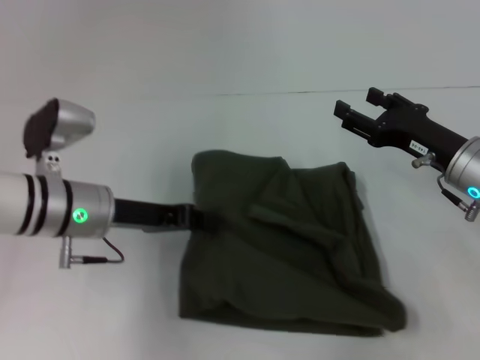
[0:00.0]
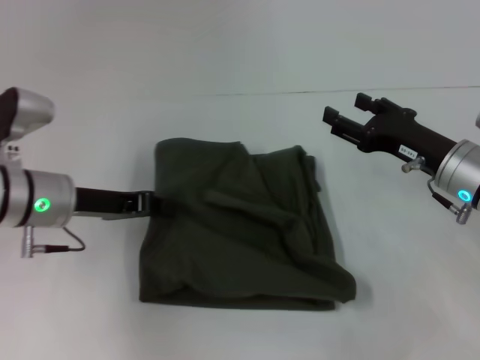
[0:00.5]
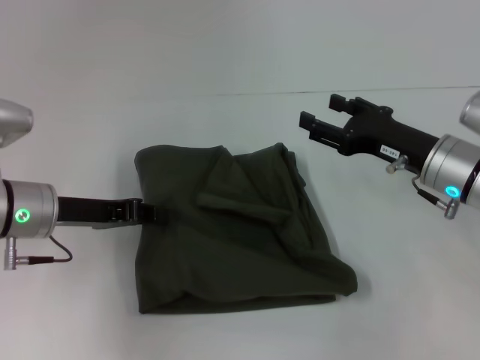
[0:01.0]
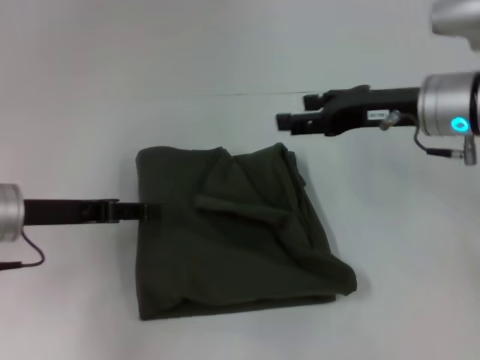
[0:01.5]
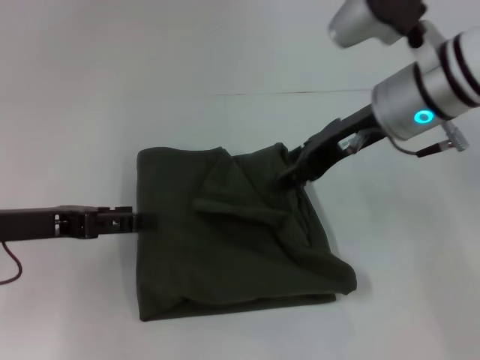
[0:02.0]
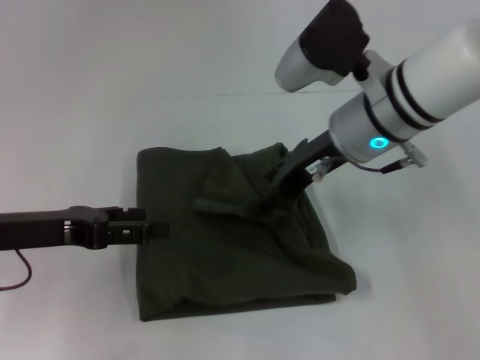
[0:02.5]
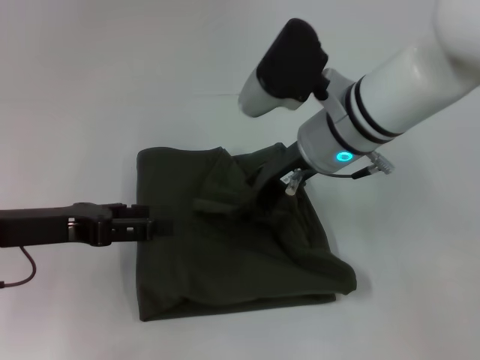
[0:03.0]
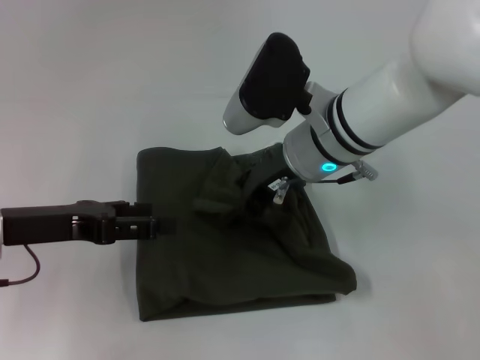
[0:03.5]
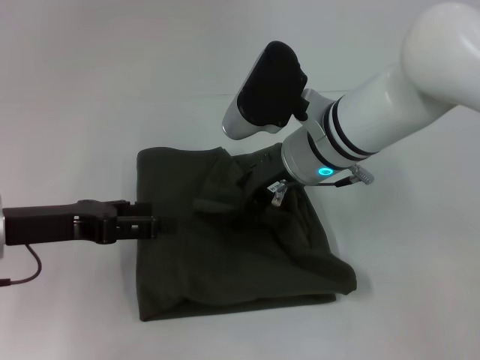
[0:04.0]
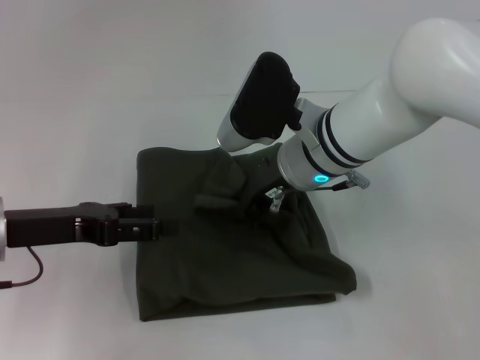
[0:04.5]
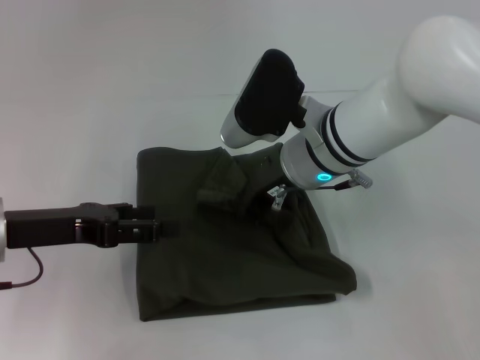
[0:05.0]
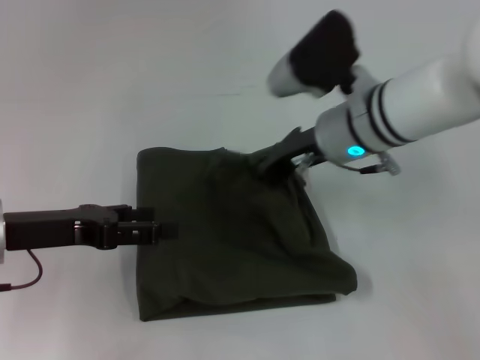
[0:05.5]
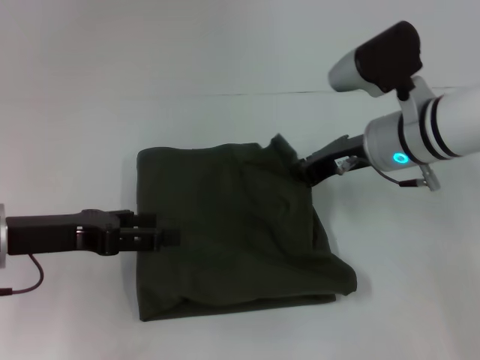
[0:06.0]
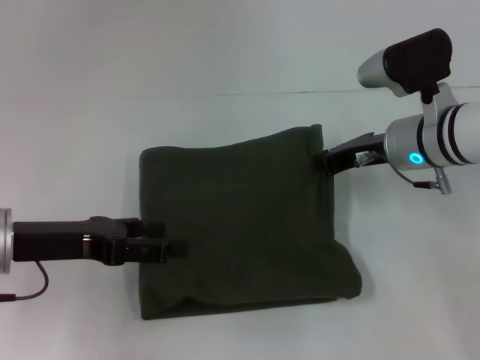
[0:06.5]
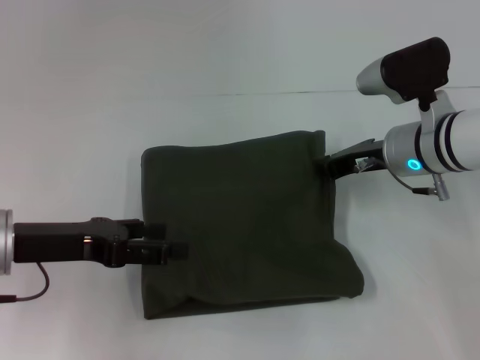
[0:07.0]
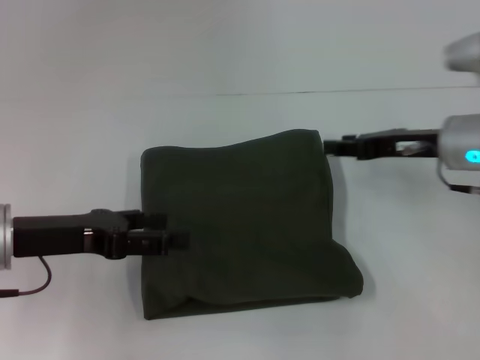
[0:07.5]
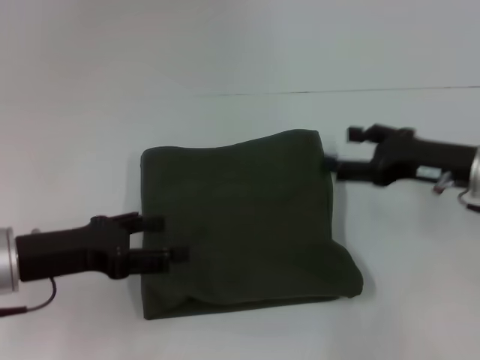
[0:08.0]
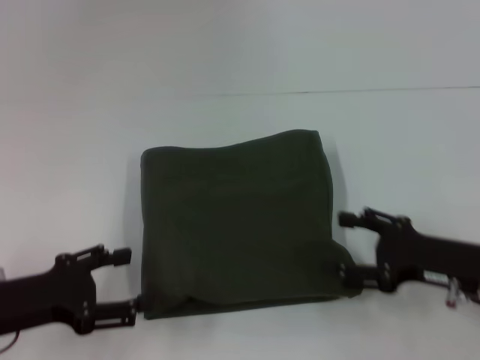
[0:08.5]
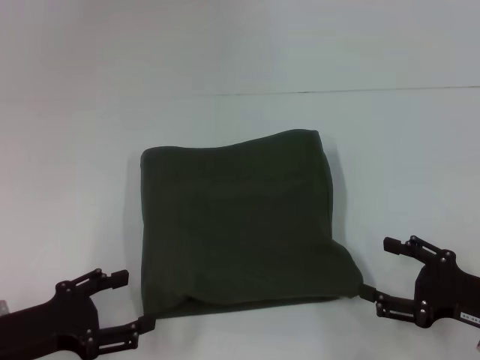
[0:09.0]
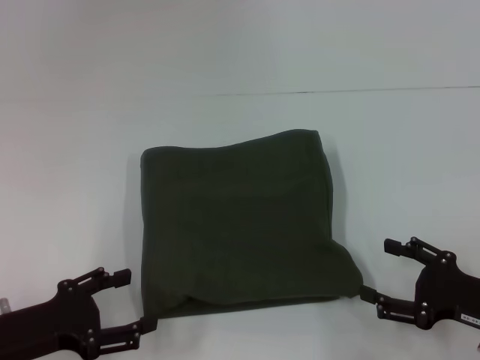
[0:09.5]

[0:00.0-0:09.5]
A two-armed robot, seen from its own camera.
0:00.0 to 0:02.0: The left gripper travels to the left and backward by roughly 10 cm, and opens its fingers; the right gripper shifts about 15 cm upward and to the left.
0:02.0 to 0:04.0: The right gripper shifts about 10 cm to the left and downward.
0:04.0 to 0:05.5: The right gripper closes its fingers.
0:05.5 to 0:07.5: The right gripper goes roughly 15 cm to the right.
0:07.5 to 0:09.5: The right gripper travels backward and downward by approximately 20 cm, and opens up, while the left gripper is displaced backward and downward by approximately 10 cm.

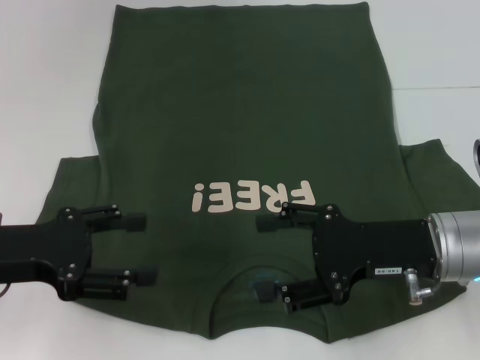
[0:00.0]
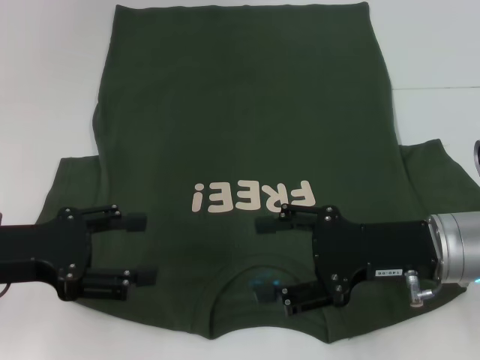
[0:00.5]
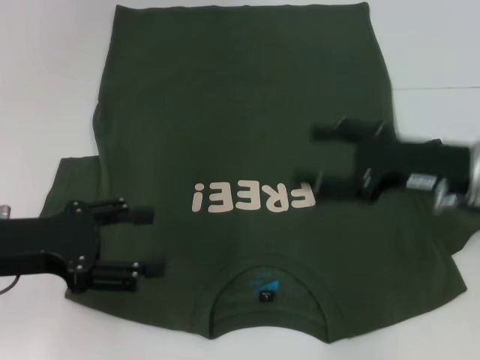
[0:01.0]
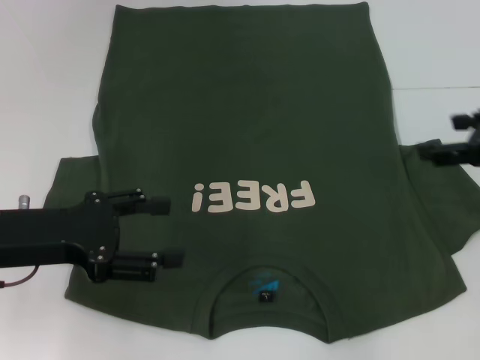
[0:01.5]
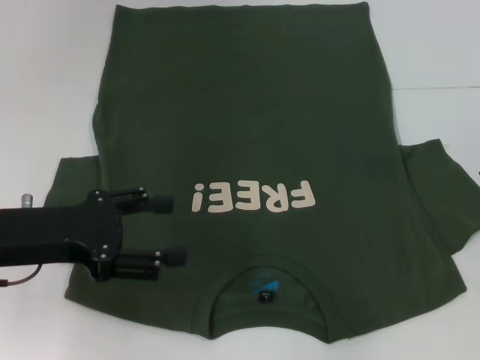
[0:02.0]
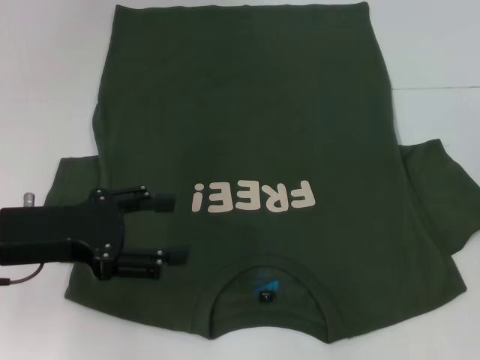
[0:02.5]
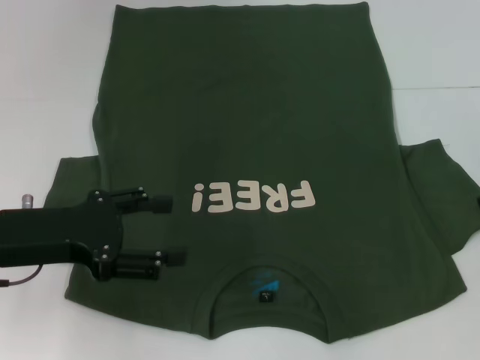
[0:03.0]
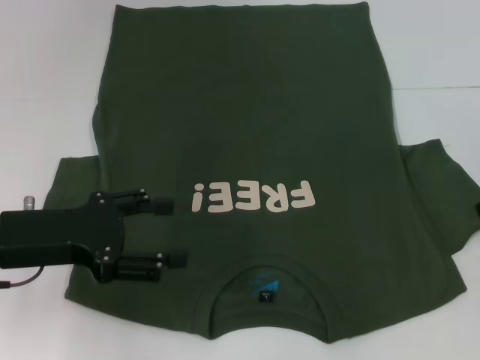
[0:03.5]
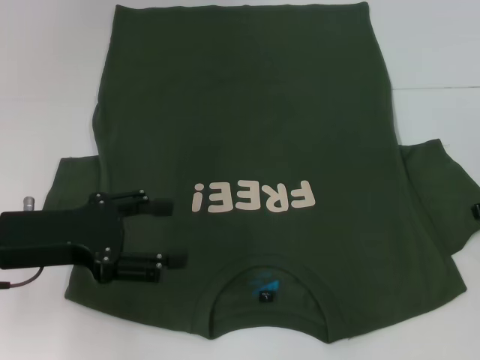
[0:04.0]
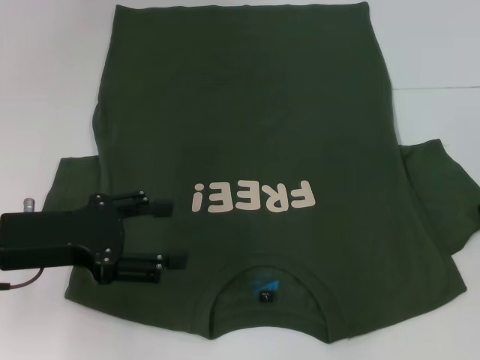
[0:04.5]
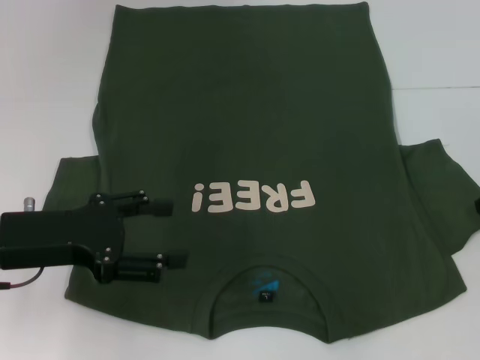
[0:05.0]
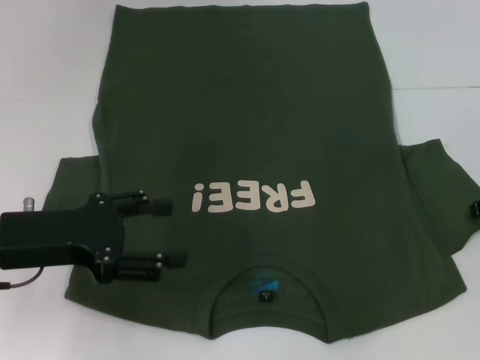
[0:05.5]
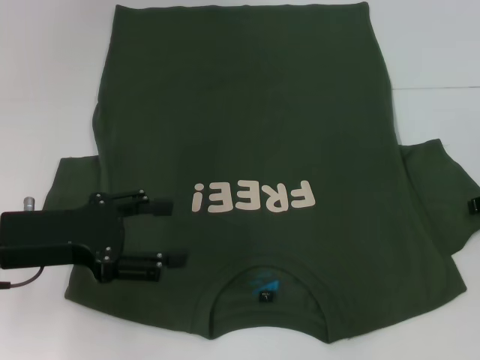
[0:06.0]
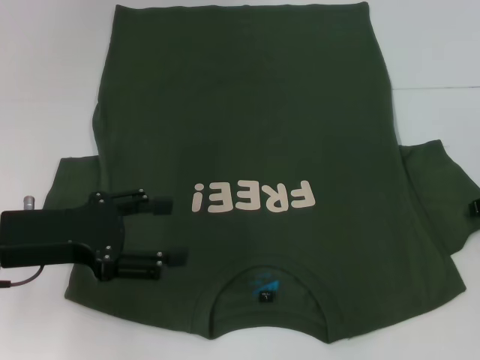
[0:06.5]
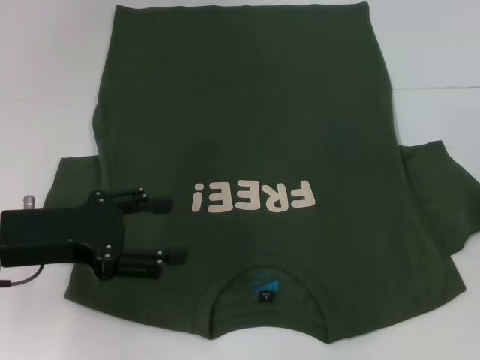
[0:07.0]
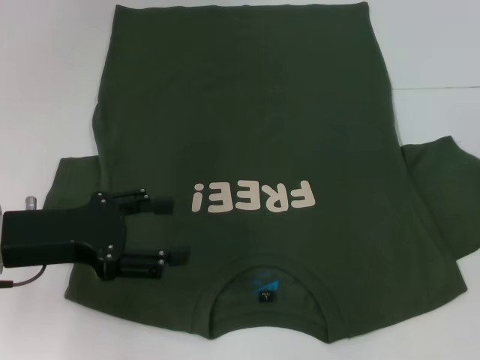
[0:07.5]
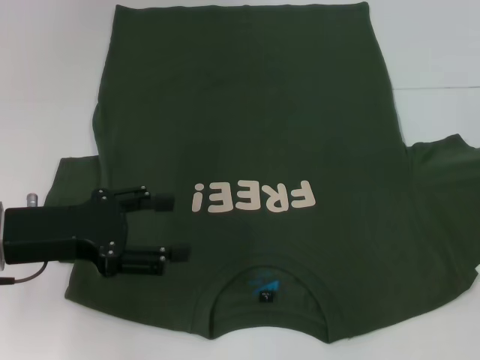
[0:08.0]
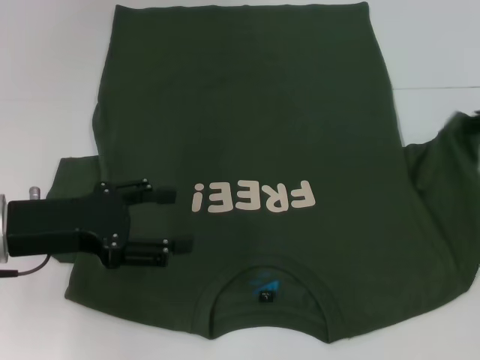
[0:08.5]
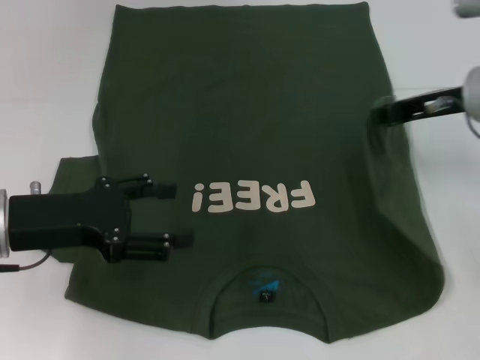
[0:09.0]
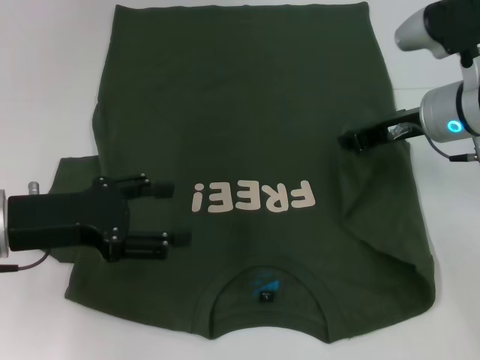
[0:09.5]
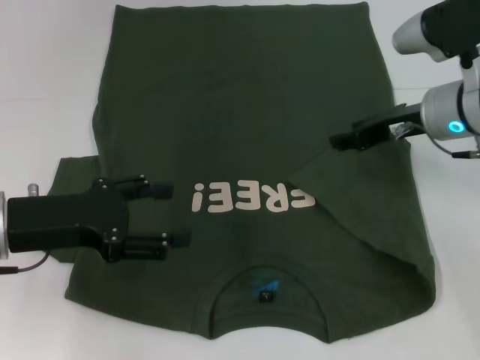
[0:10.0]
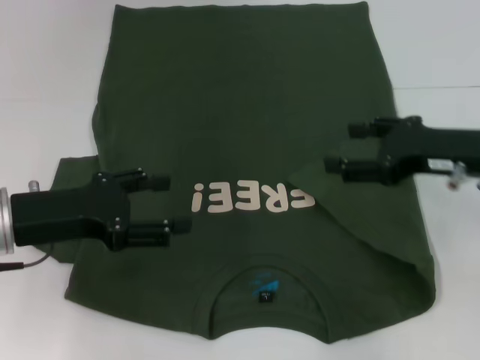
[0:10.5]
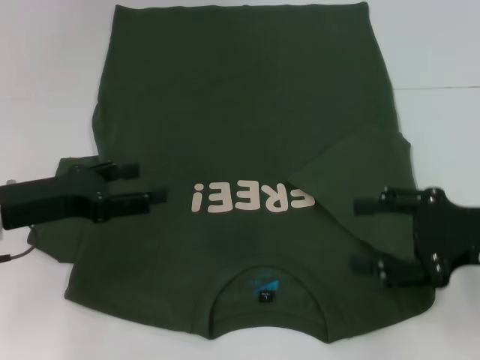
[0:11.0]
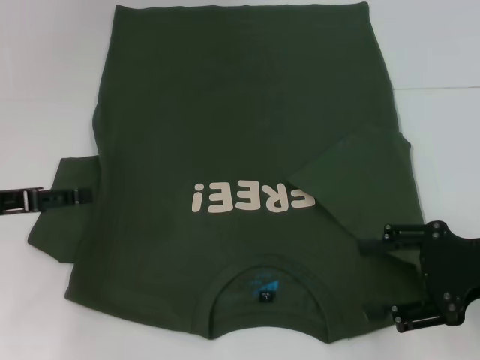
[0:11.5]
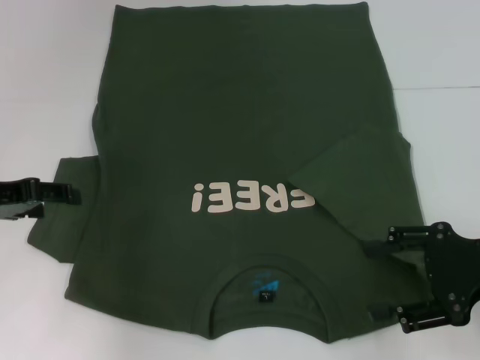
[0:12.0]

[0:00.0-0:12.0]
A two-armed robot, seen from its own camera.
Step, 0:00.0 to 0:10.0: Fold the bottom right sleeve with your right hand.
0:00.0 to 0:02.0: The right gripper goes roughly 15 cm to the right and upward.
0:06.0 to 0:08.0: The right gripper closes.
0:08.0 to 0:10.0: The right gripper travels to the left by about 15 cm, and opens.
0:10.0 to 0:12.0: The right gripper shifts some 15 cm backward and to the right, and opens. Meanwhile the left gripper shifts about 5 cm to the left.

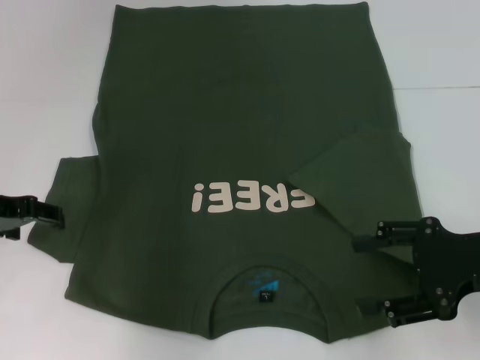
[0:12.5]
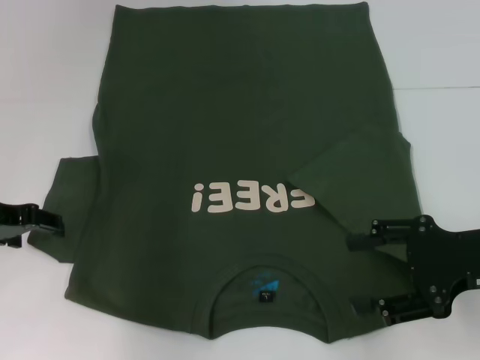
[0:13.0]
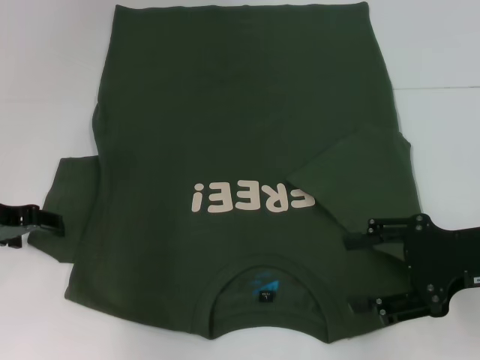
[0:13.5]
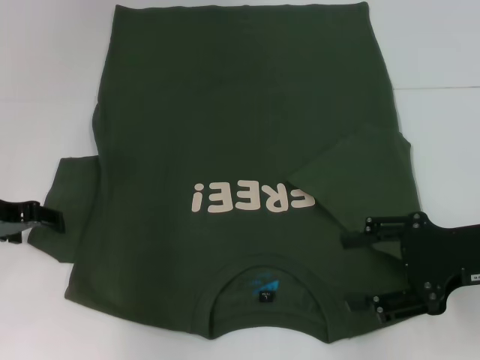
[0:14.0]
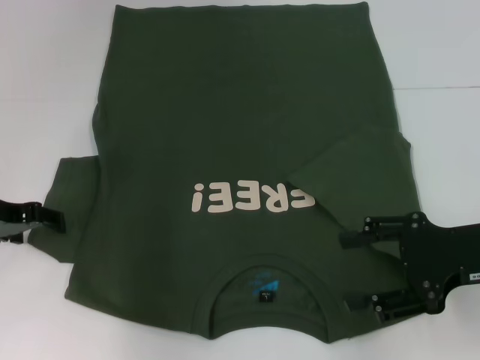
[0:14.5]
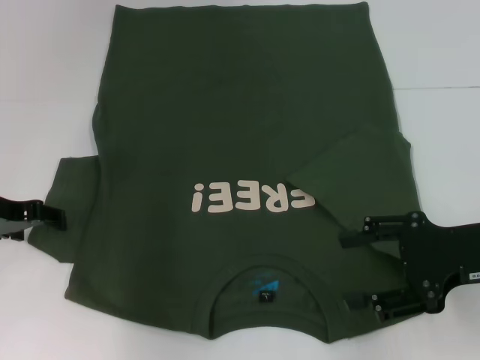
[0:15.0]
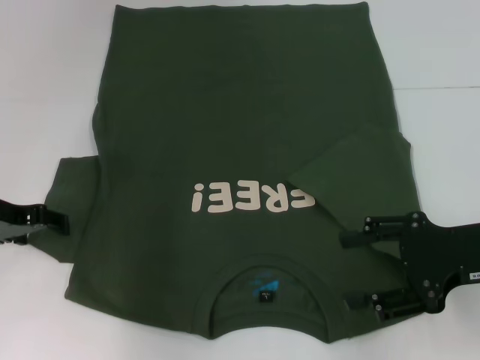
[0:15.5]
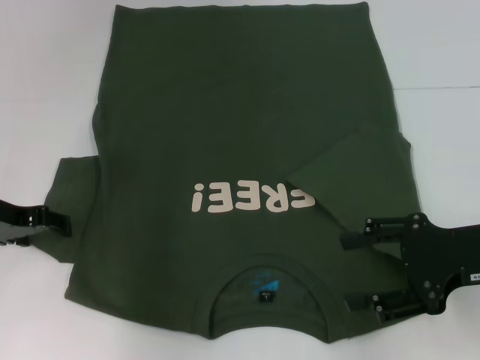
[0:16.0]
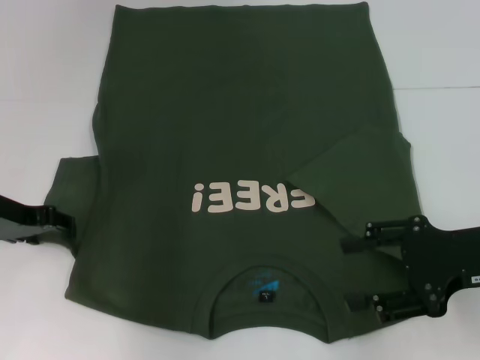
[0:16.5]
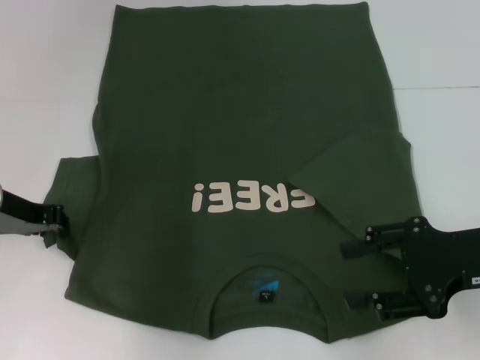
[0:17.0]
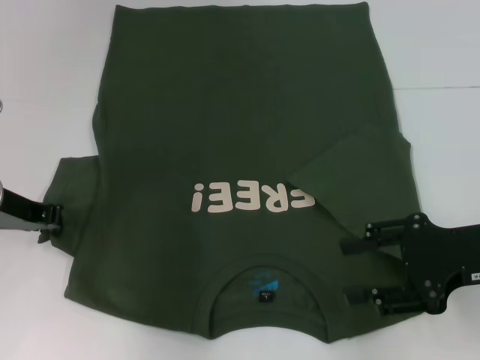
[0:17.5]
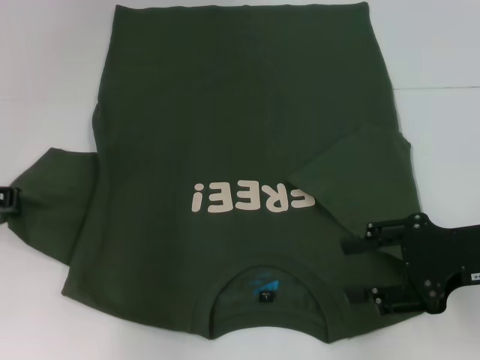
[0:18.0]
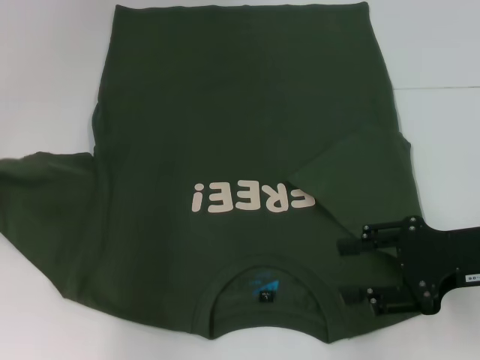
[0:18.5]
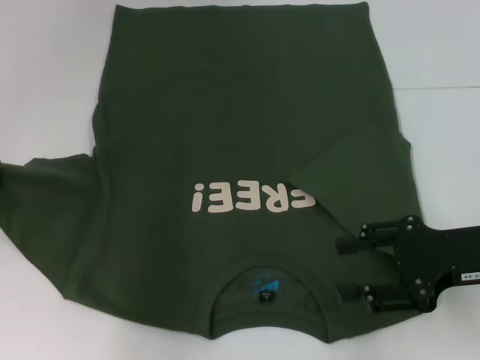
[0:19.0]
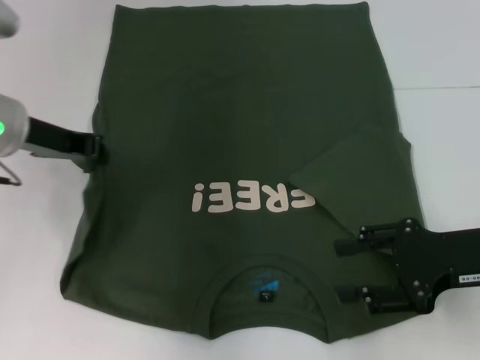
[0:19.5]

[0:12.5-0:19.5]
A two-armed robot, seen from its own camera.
0:12.5 to 0:14.5: There are only small adjustments of the grippers.
0:14.5 to 0:16.0: Both grippers stay about where they are.
0:16.0 to 0:17.5: The left gripper closes up.
0:17.5 to 0:19.5: The left gripper moves upward, roughly 5 cm.
